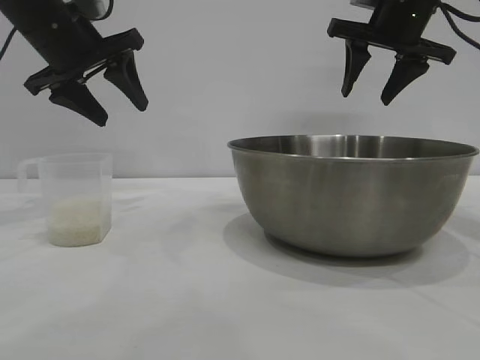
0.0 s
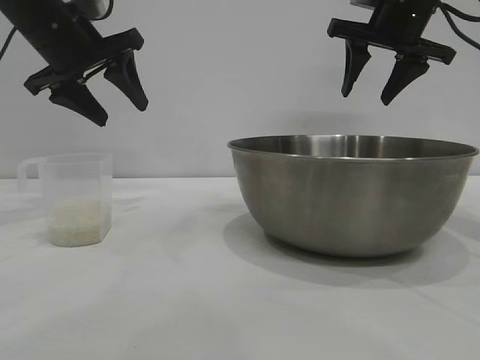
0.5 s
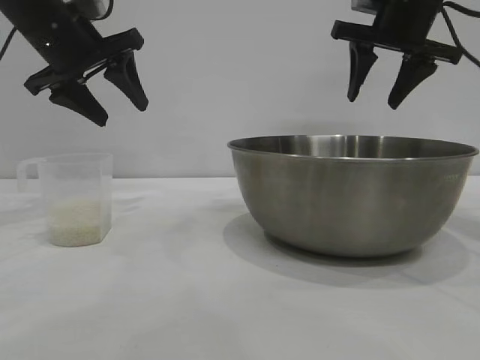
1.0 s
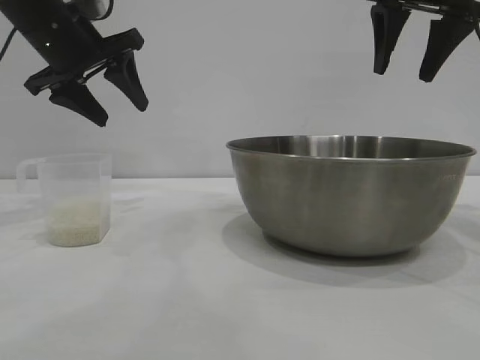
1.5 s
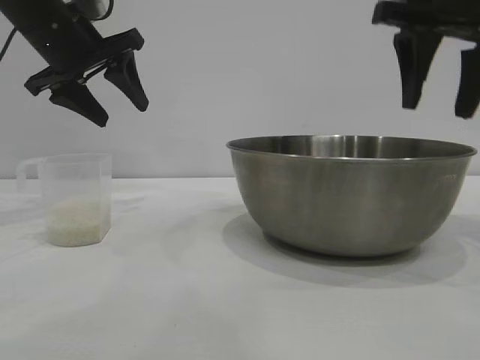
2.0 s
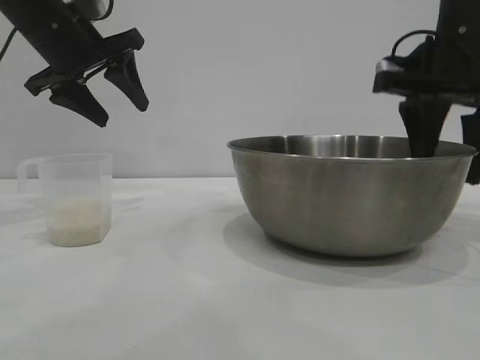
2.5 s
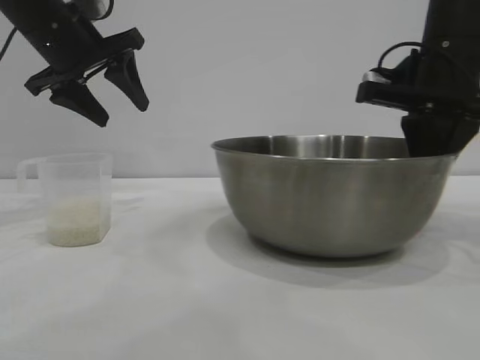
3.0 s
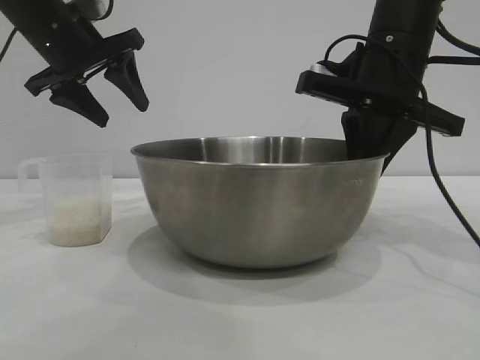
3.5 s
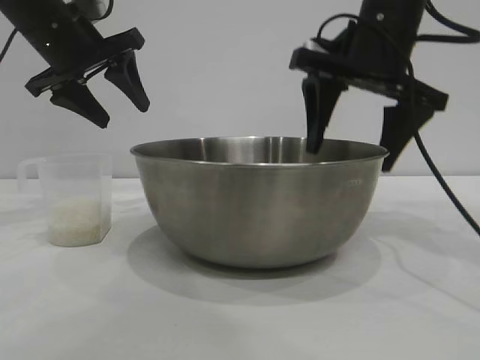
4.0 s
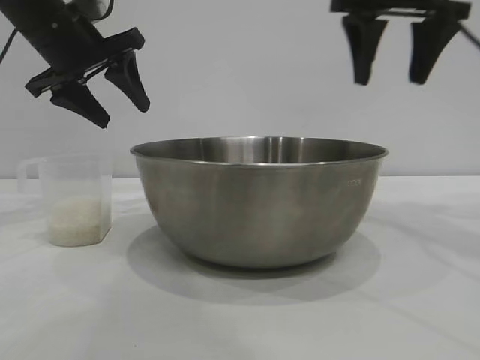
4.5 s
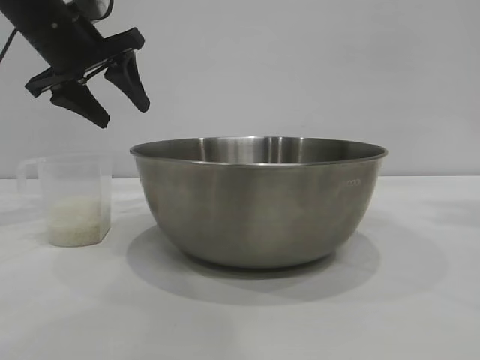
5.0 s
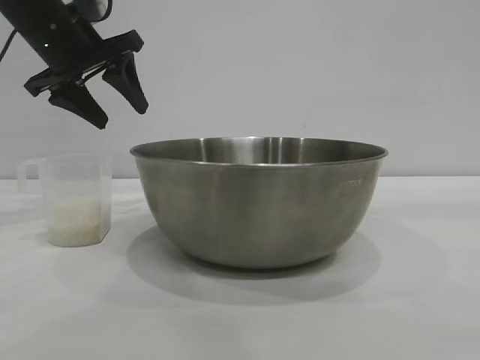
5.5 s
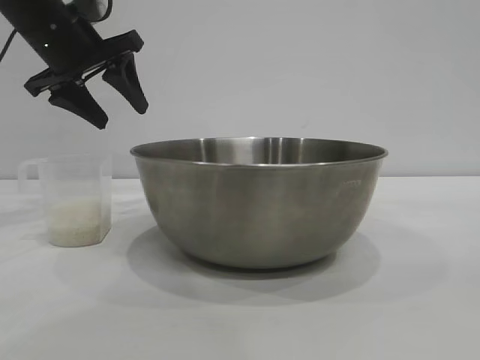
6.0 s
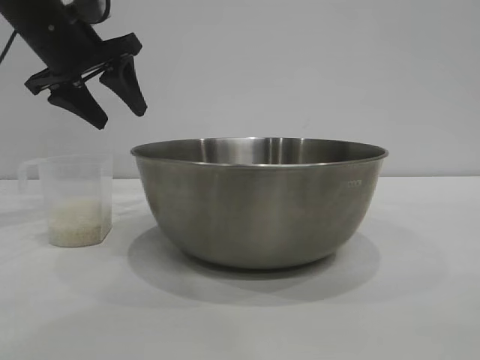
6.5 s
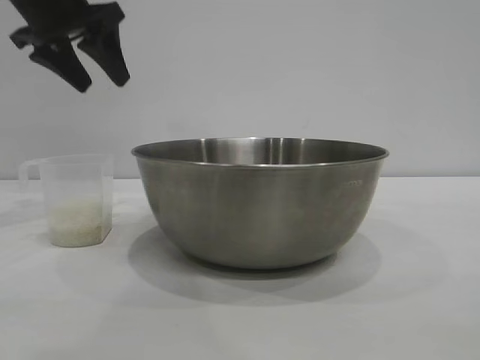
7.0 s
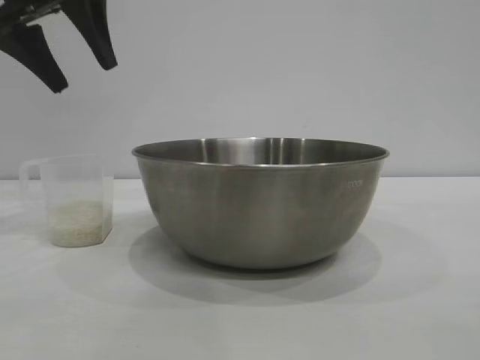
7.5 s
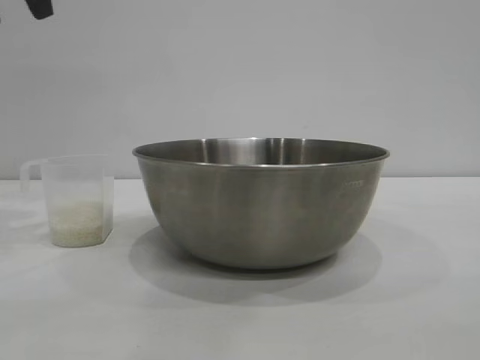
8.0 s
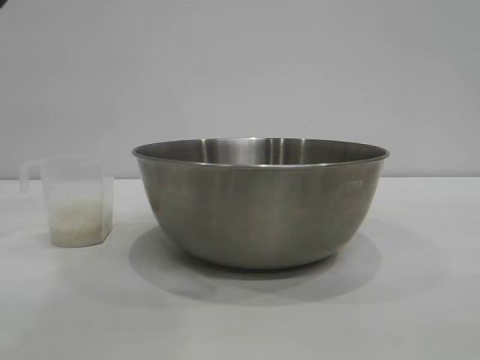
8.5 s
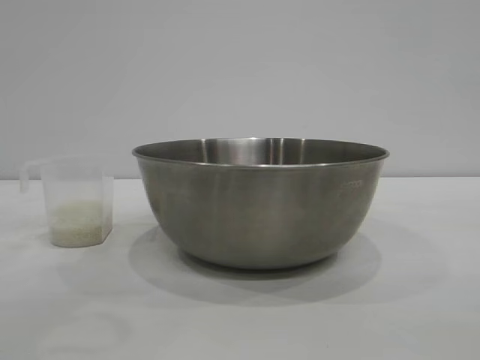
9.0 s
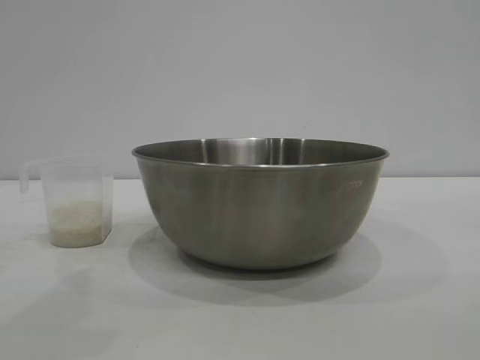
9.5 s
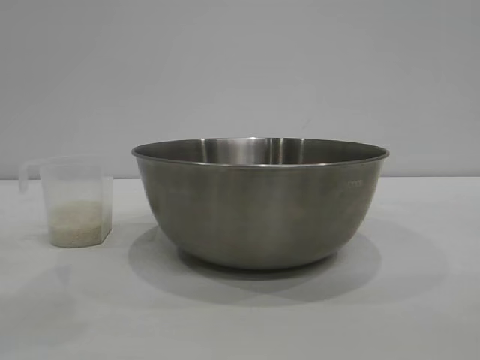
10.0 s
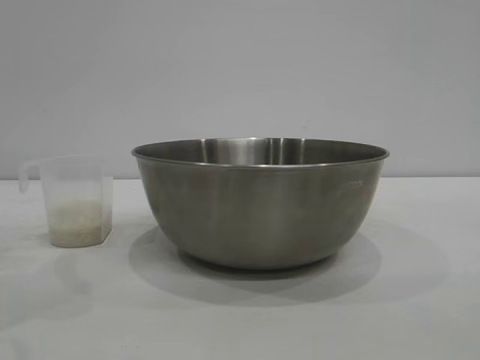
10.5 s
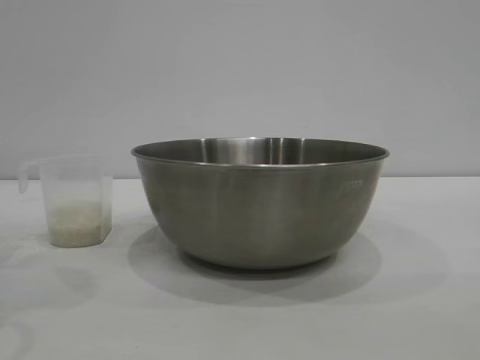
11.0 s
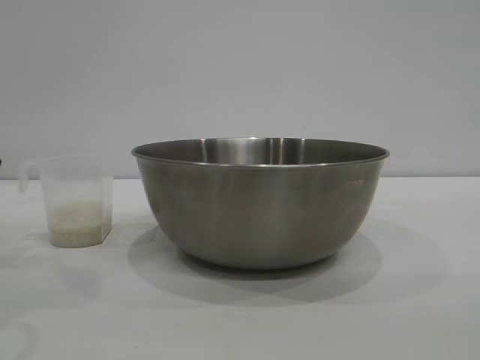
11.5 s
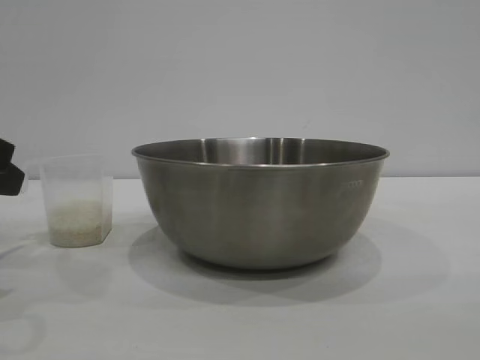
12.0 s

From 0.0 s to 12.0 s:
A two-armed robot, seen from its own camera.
Task of the whole recording: the right gripper grasp the rice container and place it in the center of the table, the left gripper grasp the rice scoop and pour the rice into the rice container.
Step, from 0.0 s to 4.0 s: Move the bowl to the center of view with the right gripper.

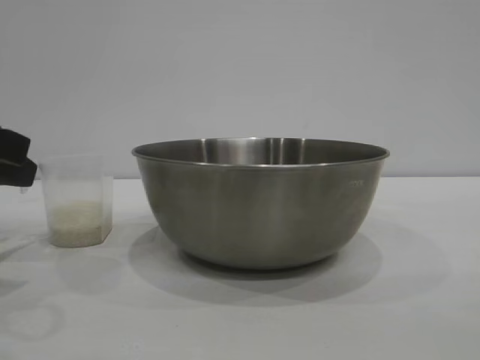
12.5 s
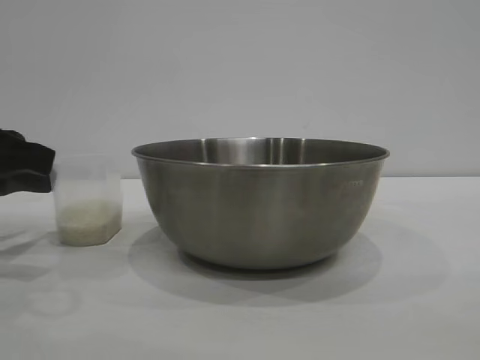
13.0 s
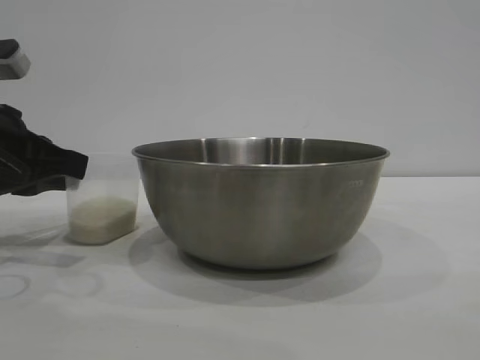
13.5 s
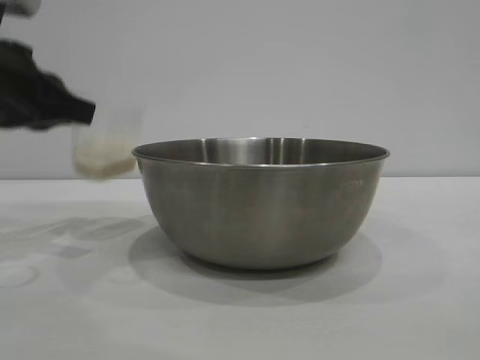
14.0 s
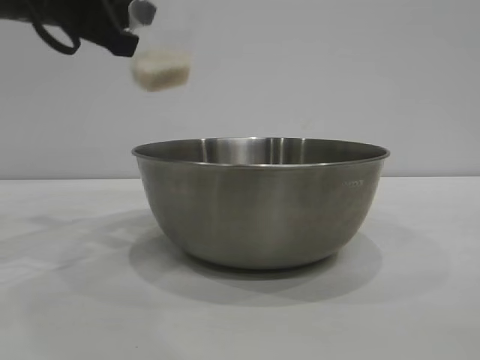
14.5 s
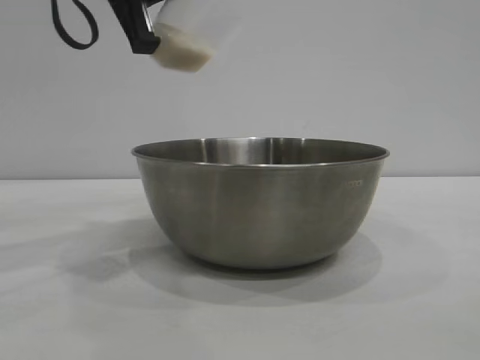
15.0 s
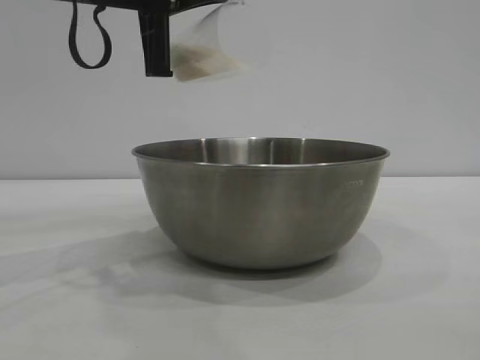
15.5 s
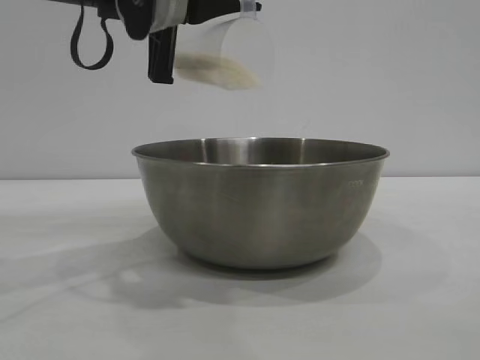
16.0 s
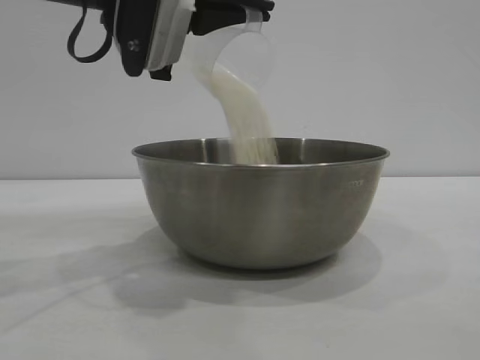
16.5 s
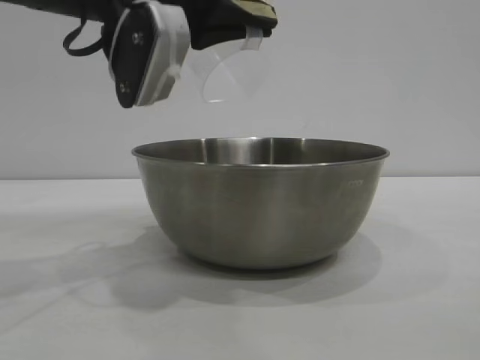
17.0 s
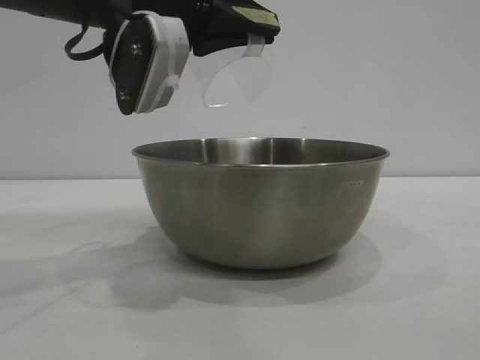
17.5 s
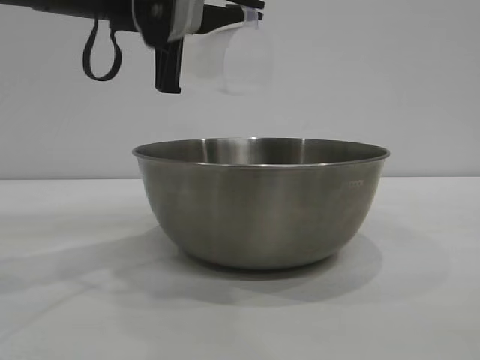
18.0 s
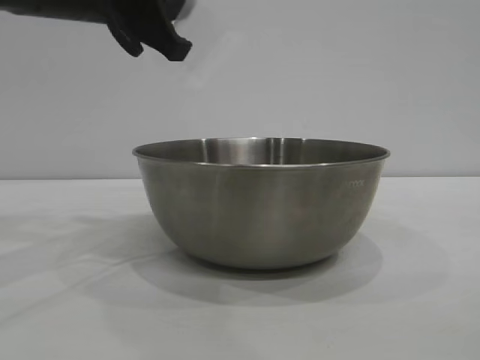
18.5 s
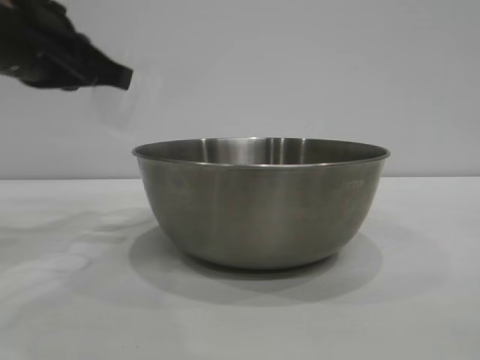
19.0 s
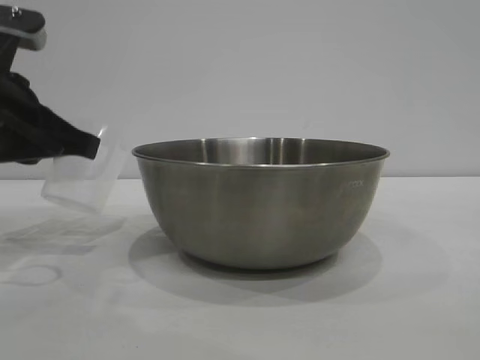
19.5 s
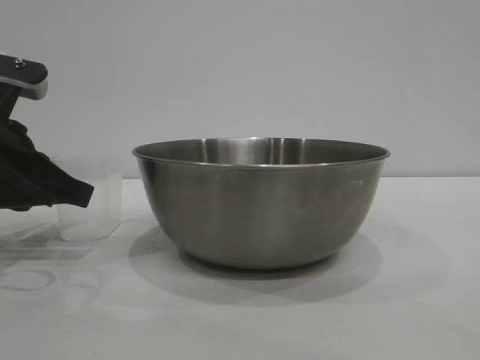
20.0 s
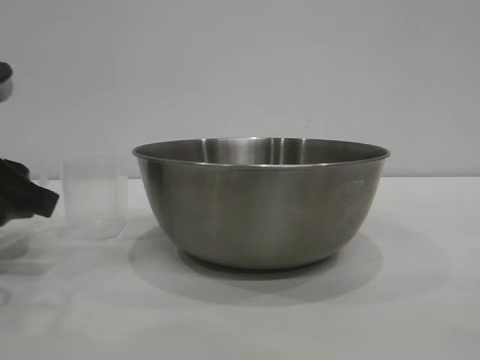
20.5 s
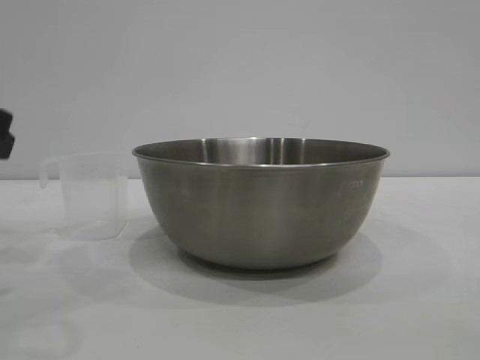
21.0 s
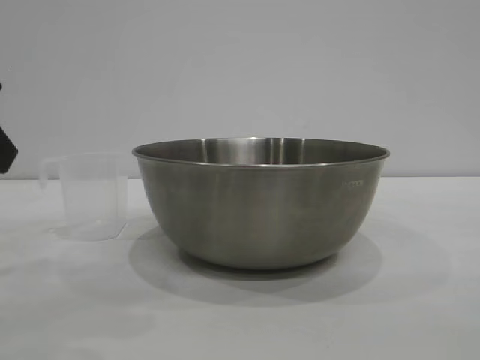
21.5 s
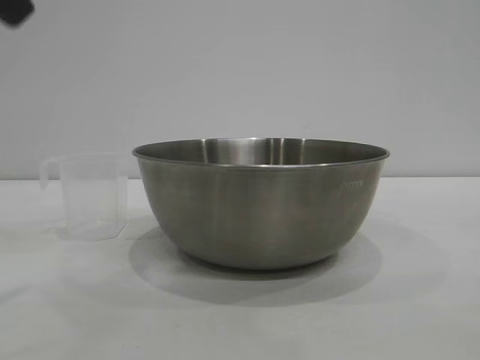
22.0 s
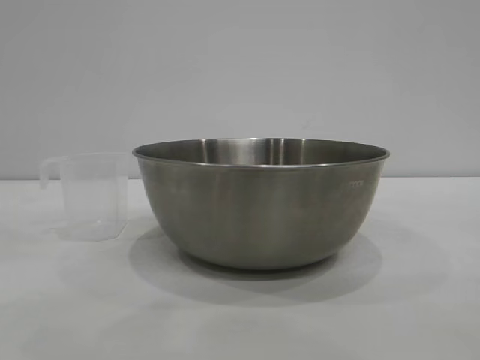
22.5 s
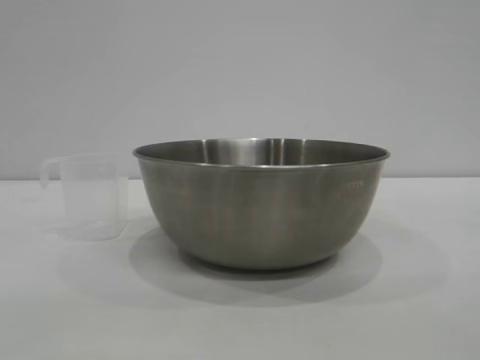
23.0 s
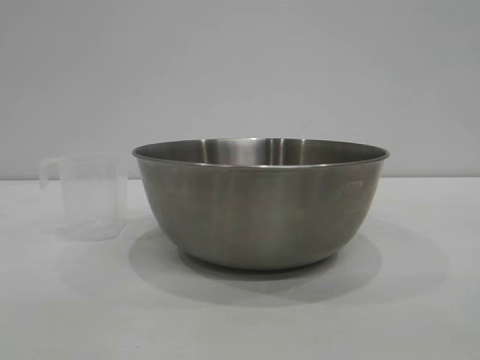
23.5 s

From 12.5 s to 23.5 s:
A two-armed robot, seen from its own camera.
Task of the whole recording: the right gripper grasp the rice container and place it in the center of the table, the left gripper grasp the rice scoop and pour the rice into the rice container.
Step, from 14.0 s to 18.0 s: Pour the rice from the cup into the bowl with the left gripper.
Step, from 18.5 s to 20.5 s: Place the cup on the table with the left gripper.

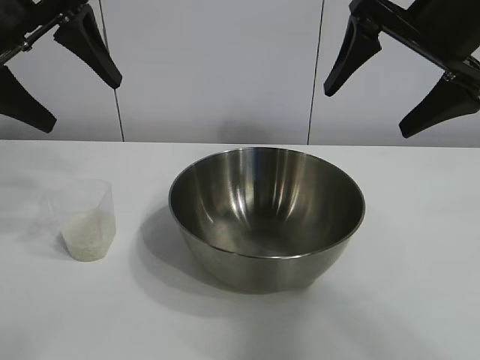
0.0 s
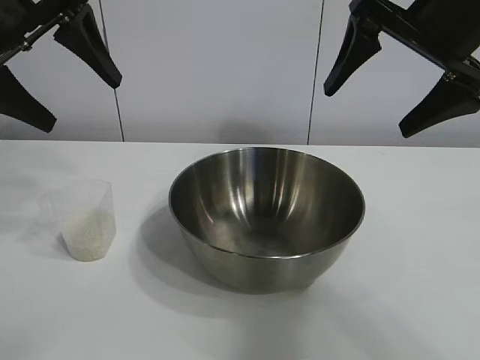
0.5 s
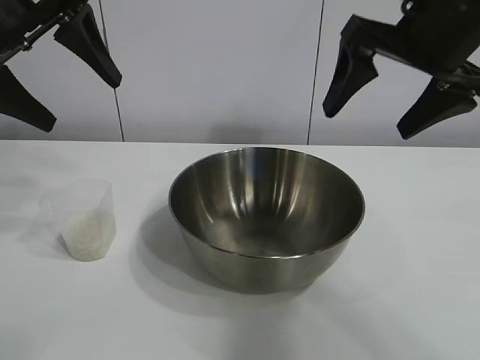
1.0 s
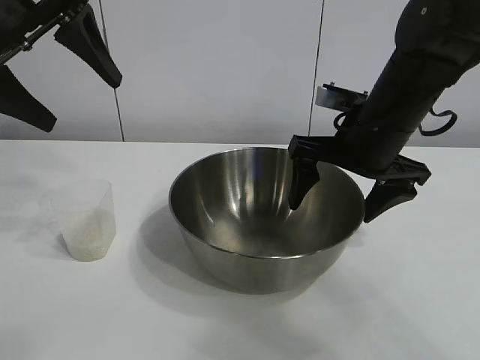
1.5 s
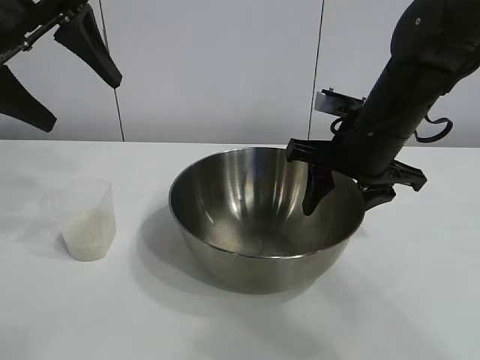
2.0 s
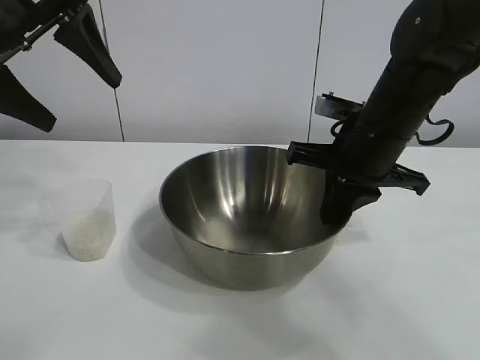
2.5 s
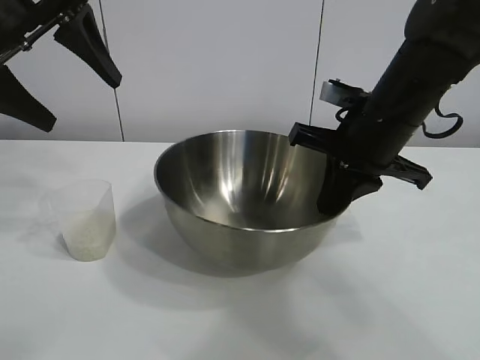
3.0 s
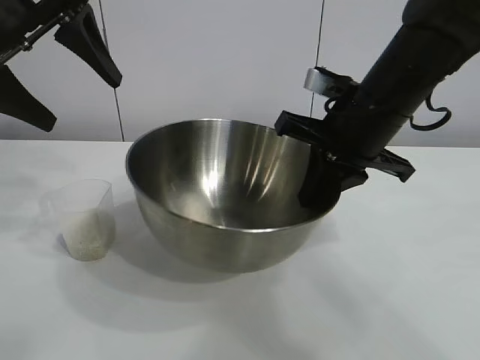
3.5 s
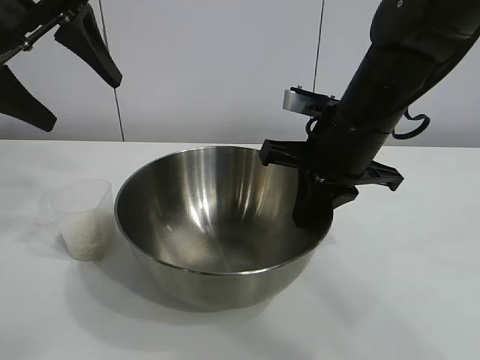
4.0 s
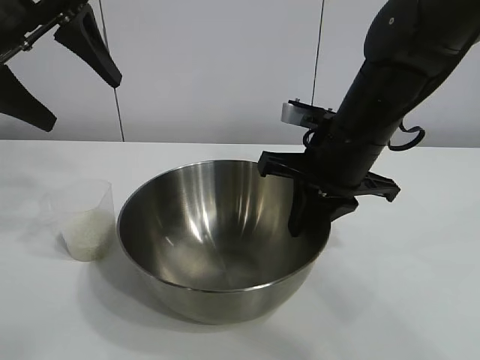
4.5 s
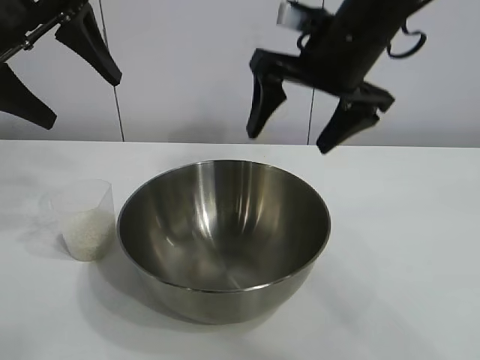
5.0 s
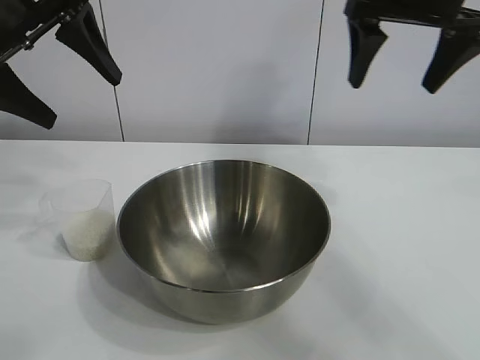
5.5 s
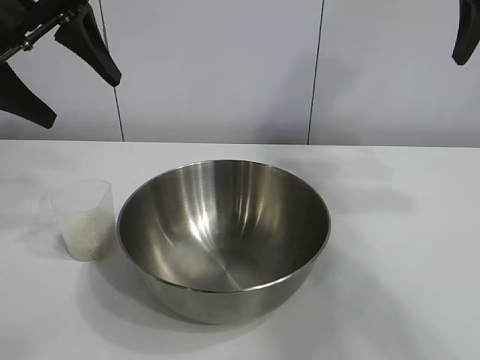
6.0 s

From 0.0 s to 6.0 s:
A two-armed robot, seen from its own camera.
Task of the whole recording: the right gripper grasp the rice container and place it in the center of the table, the left gripper grasp the rice scoop and pour the rice into the rice container.
Step, from 1.0 s to 4.5 s: Move the bowl in the center of view with right gripper.
